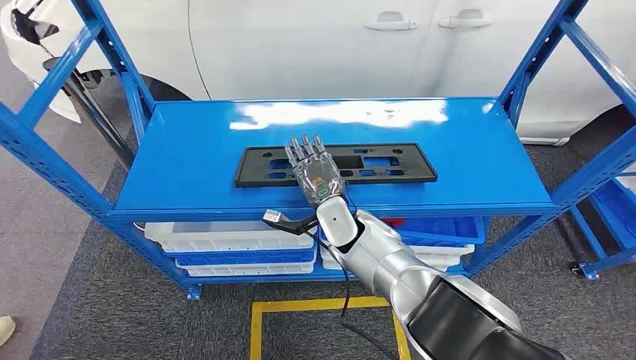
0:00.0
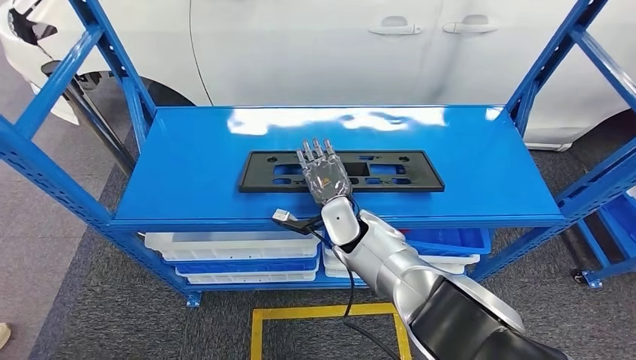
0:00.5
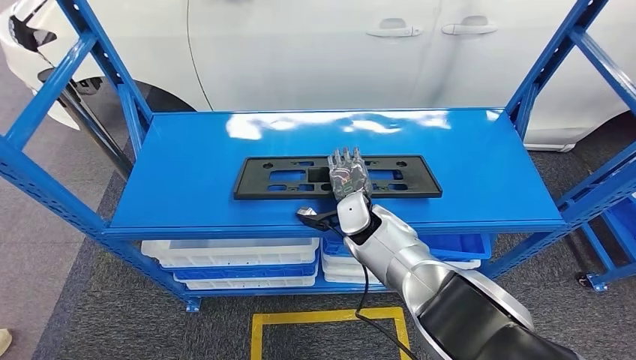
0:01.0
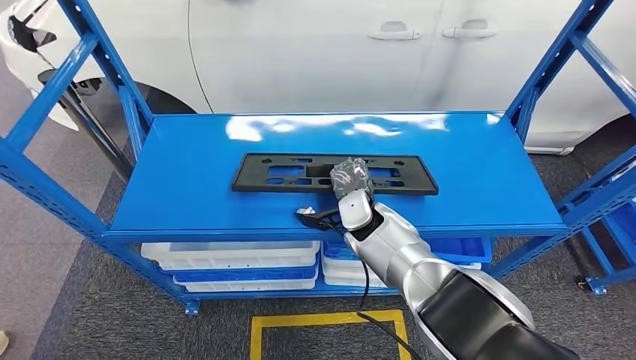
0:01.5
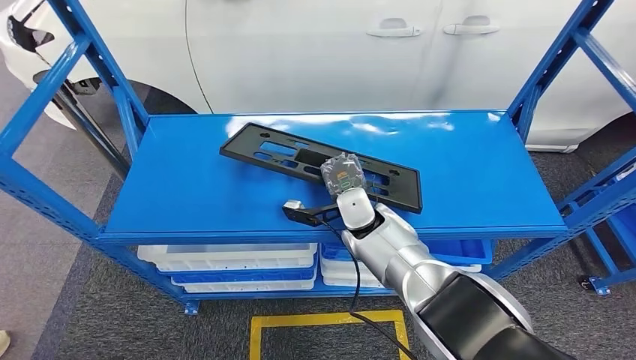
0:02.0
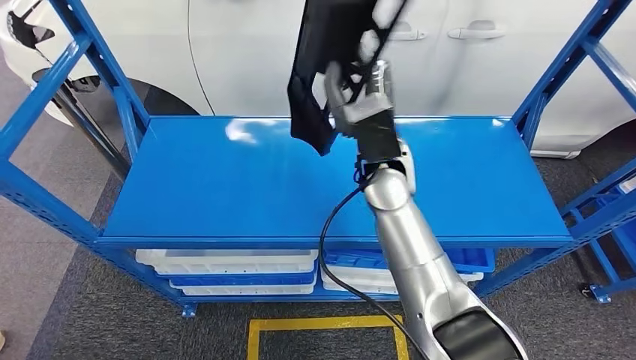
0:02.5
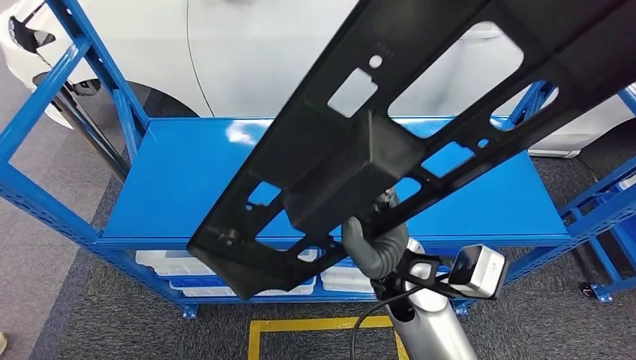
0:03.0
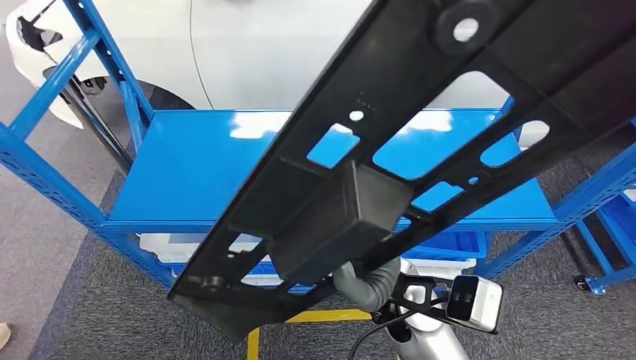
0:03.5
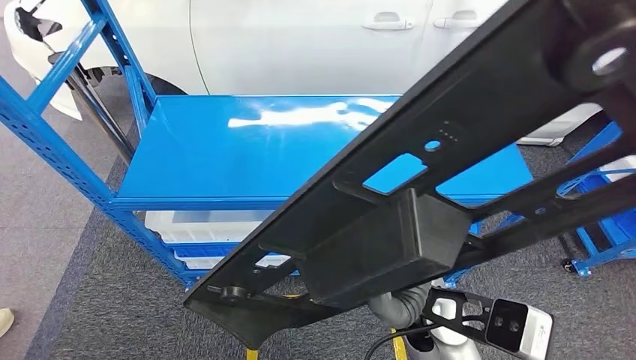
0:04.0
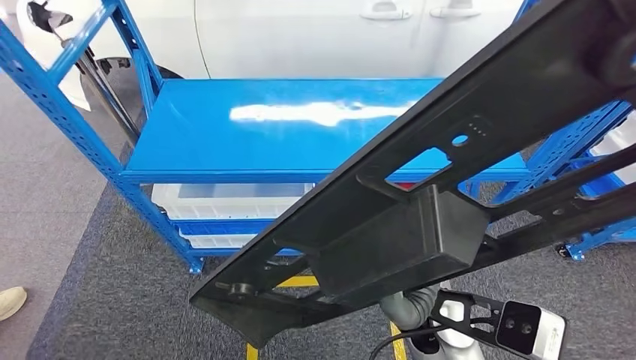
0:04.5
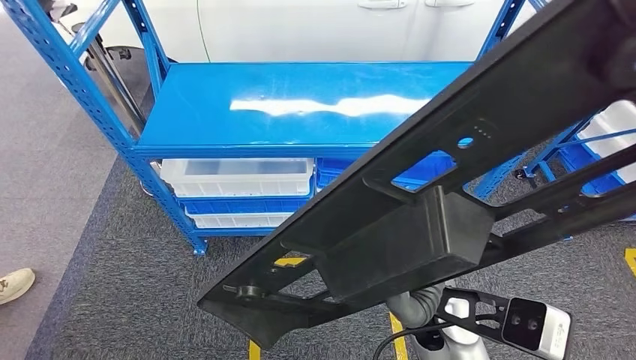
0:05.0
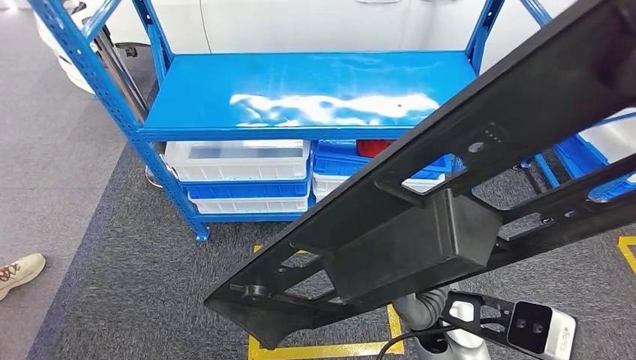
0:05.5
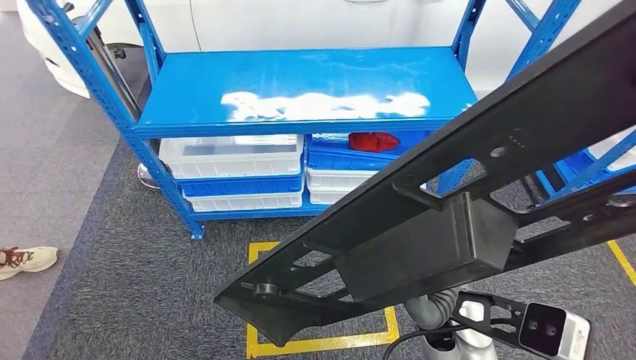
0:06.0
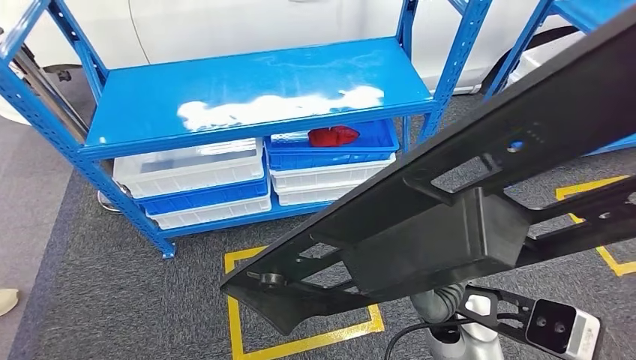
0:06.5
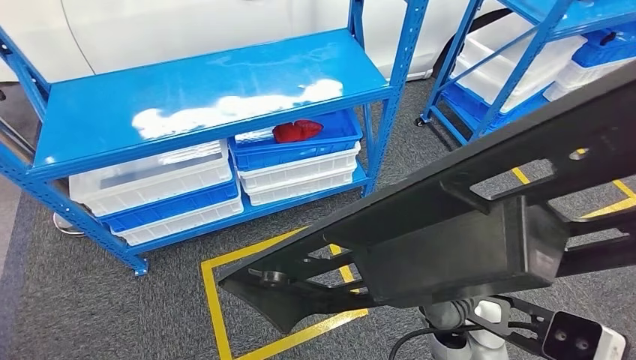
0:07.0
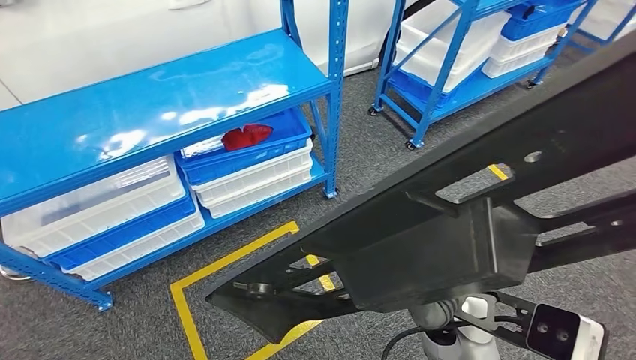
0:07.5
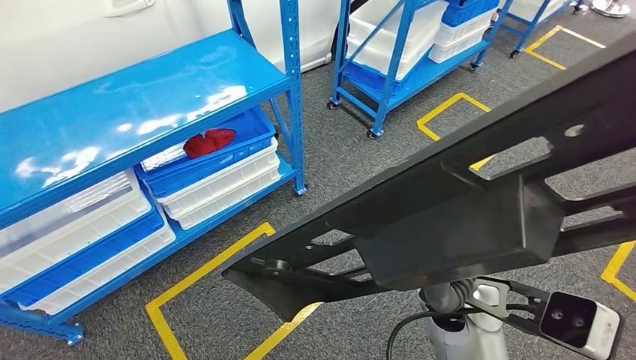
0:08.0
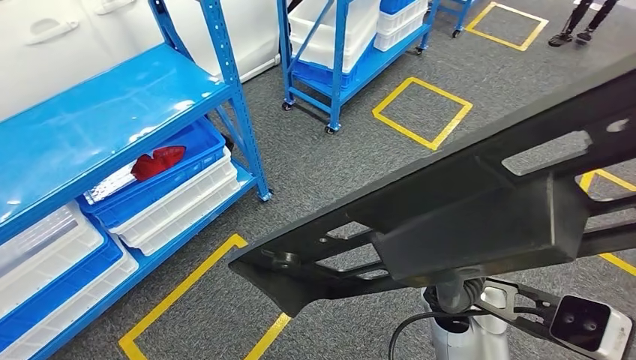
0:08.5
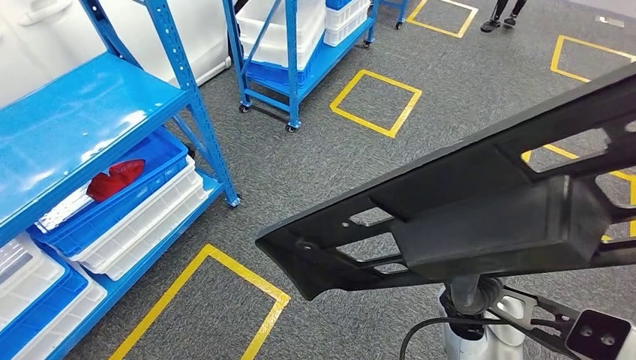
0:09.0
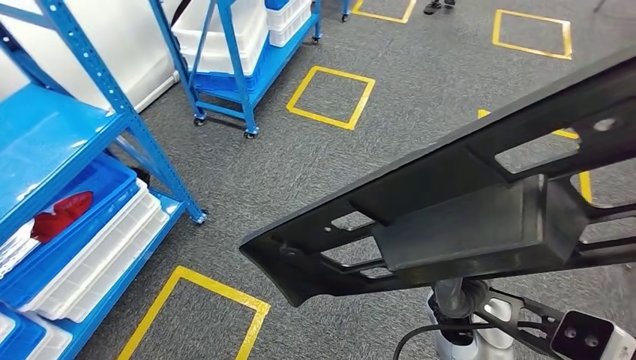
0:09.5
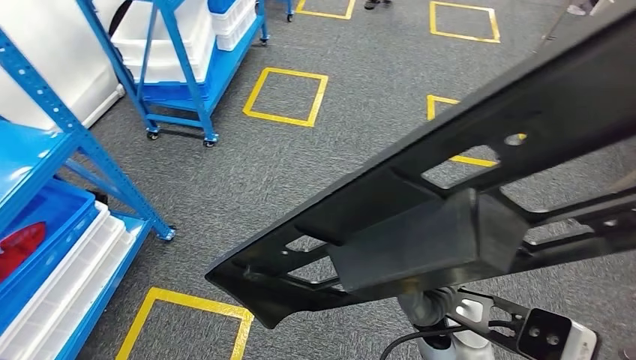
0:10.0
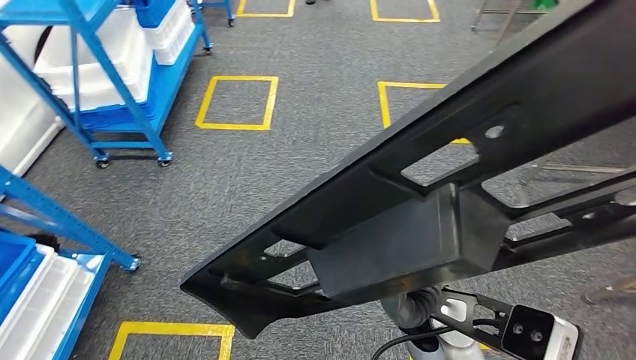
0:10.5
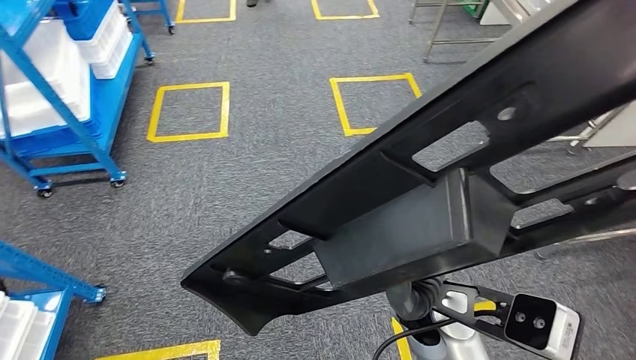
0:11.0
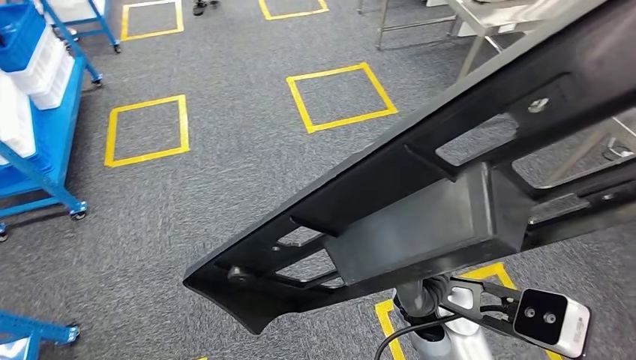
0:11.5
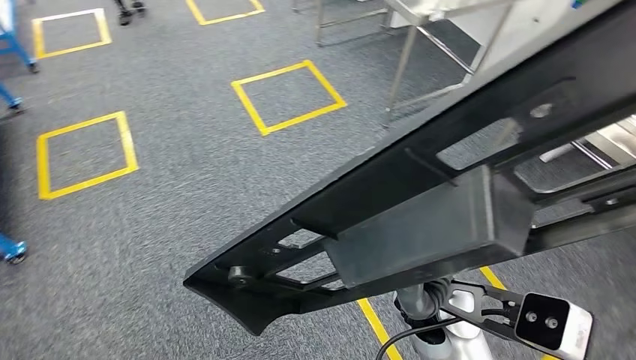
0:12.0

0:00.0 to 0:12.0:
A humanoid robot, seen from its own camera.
Step, 0:00.0 to 0:03.0: Pick up the large material from the shelf.

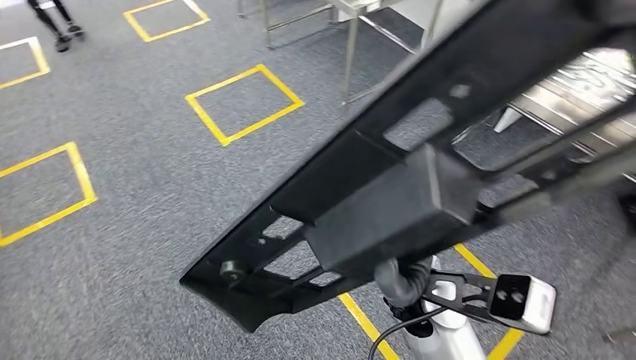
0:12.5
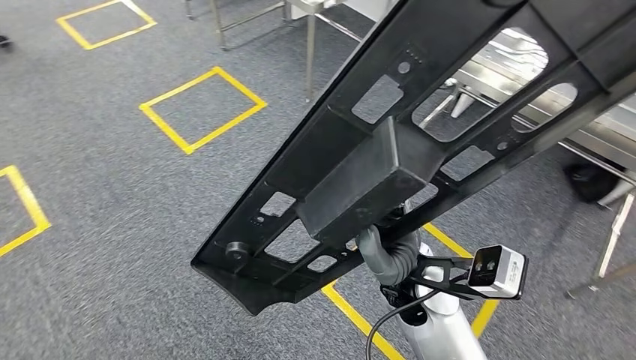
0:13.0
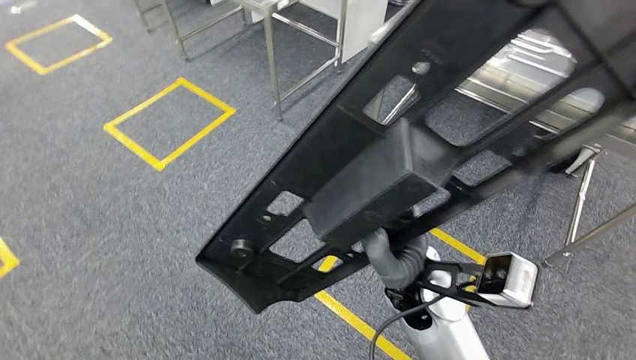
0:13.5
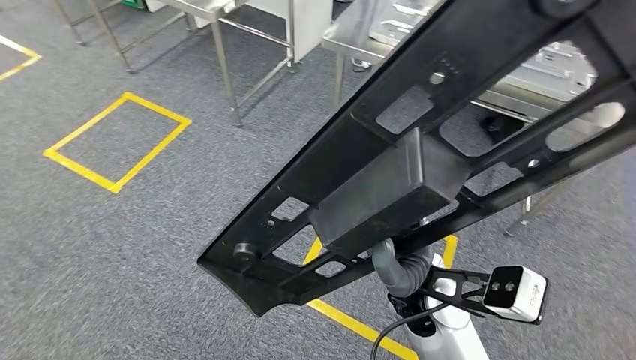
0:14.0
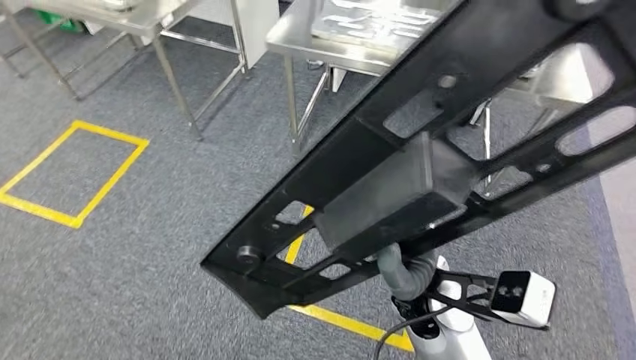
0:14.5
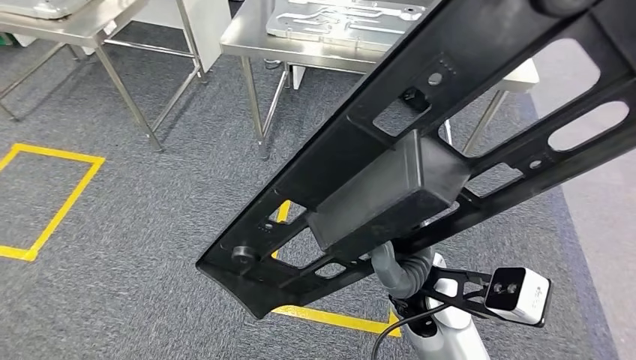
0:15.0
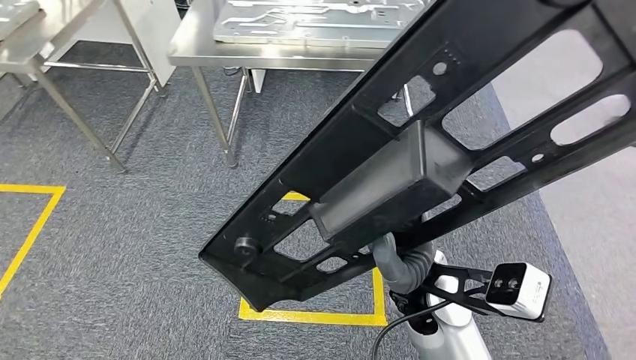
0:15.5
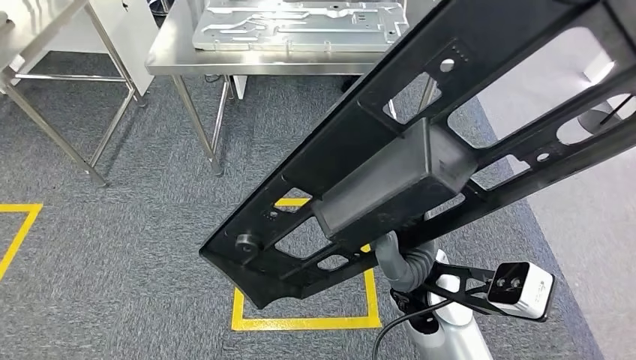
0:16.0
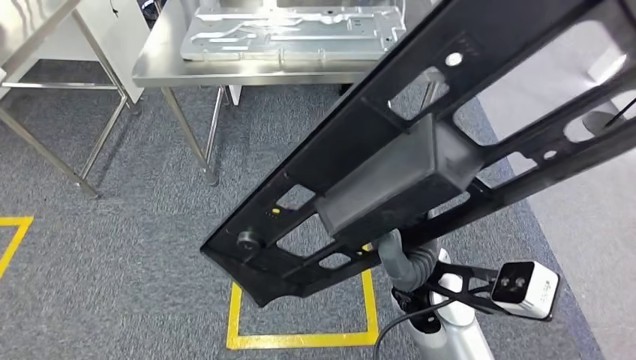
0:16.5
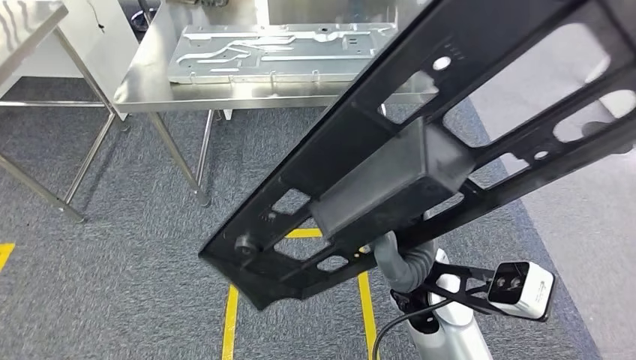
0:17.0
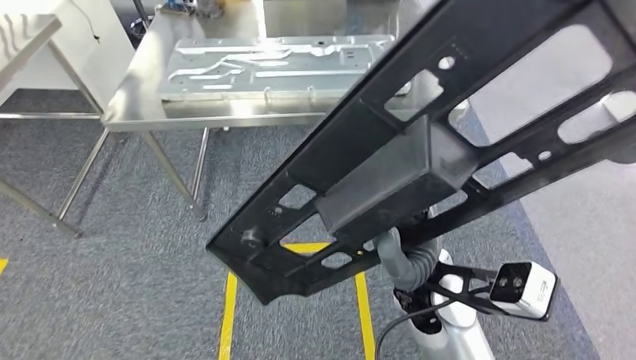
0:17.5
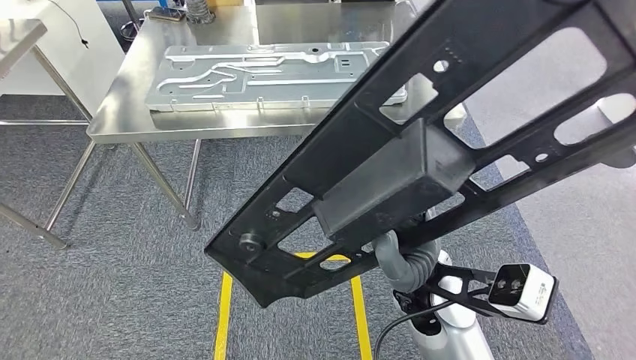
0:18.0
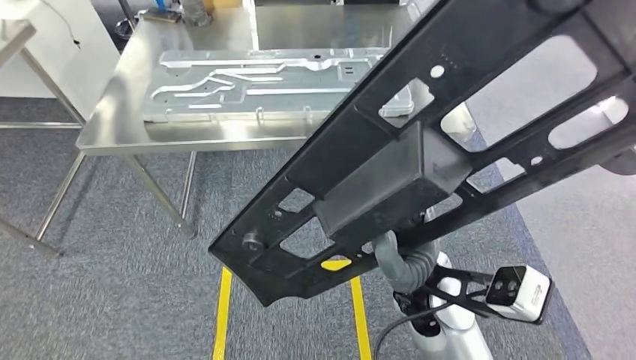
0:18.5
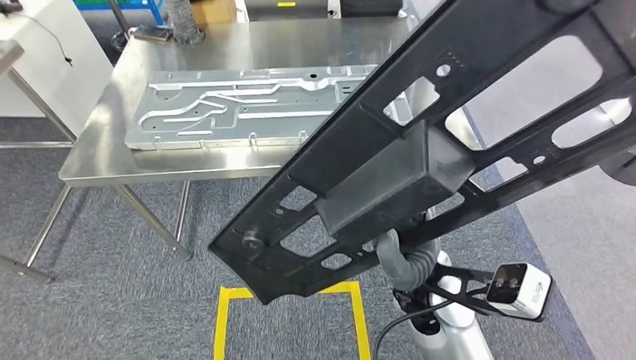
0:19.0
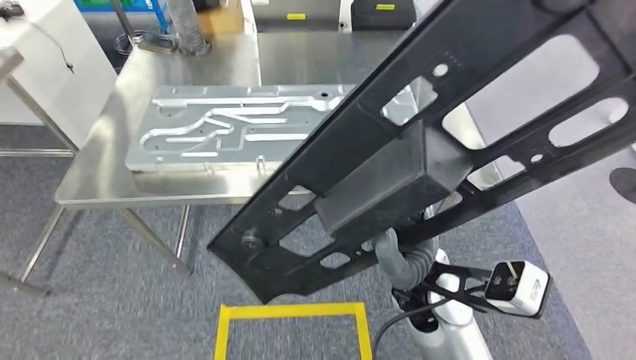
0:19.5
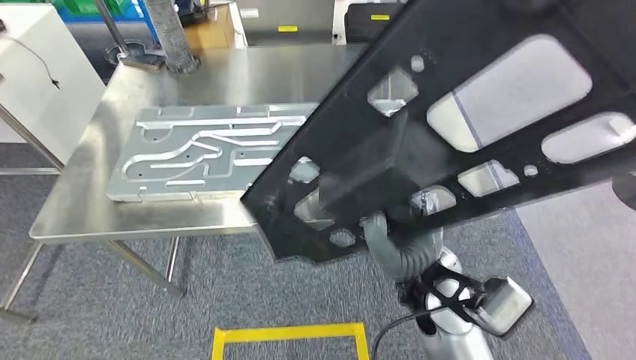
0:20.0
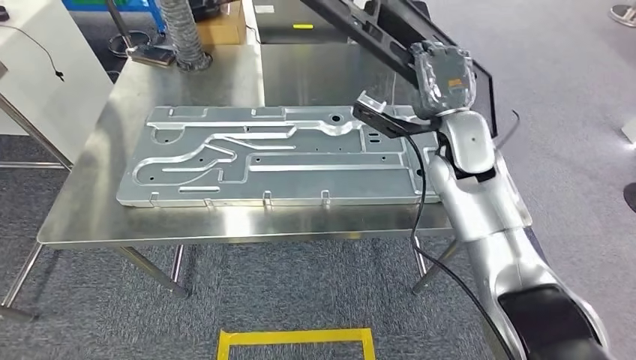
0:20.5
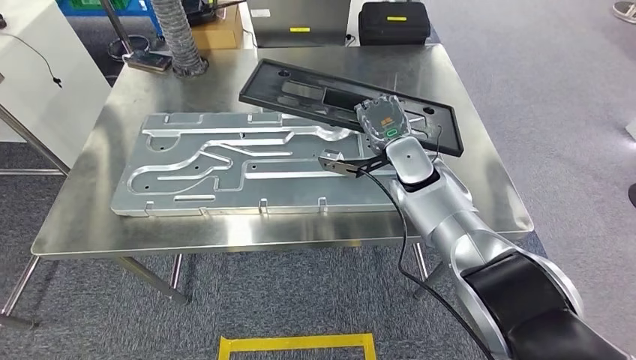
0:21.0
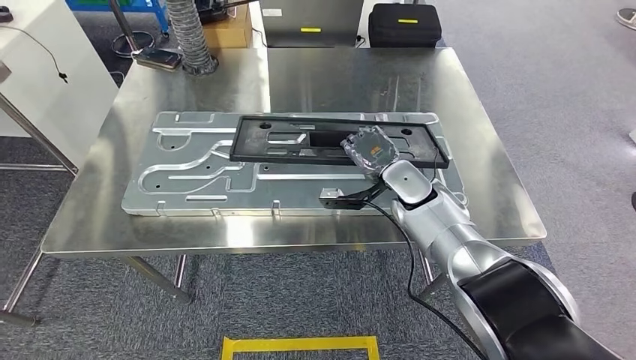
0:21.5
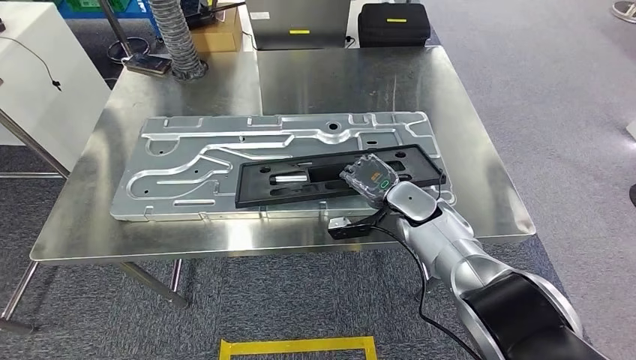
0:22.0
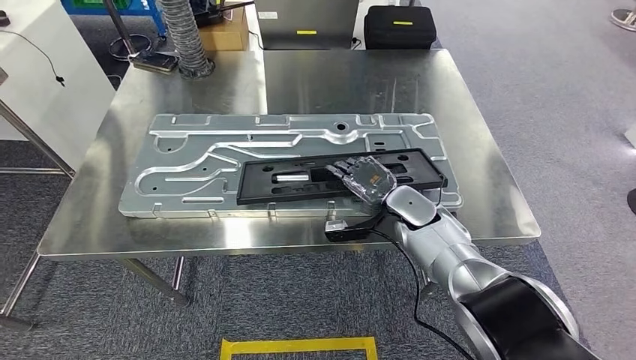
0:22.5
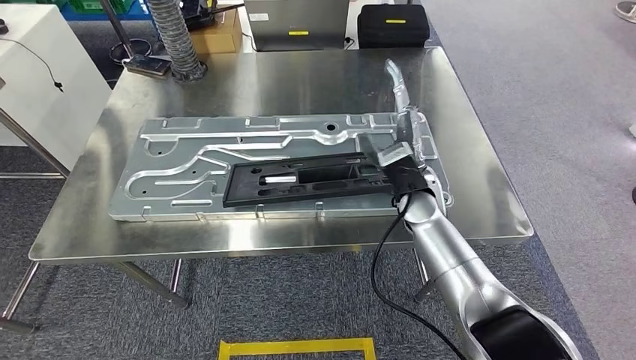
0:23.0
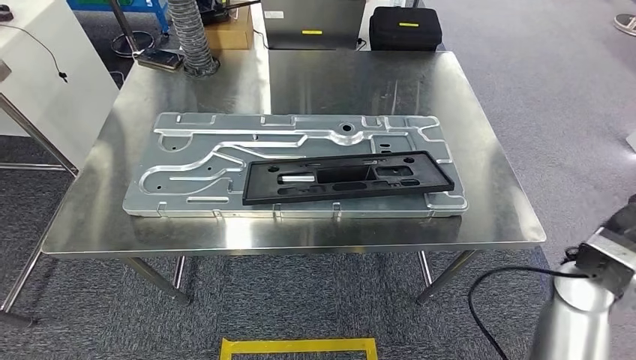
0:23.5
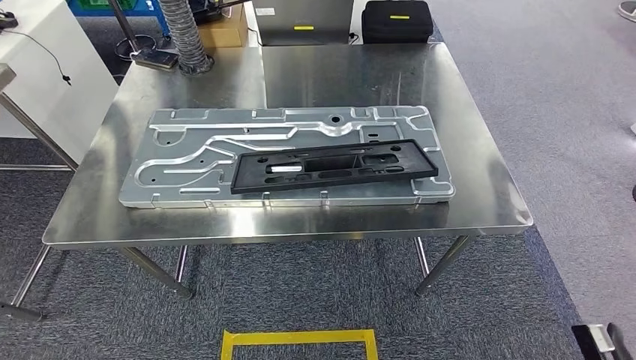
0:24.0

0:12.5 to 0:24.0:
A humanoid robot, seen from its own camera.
Step, 0:12.5 to 0:19.5: Move the large material to the workbench.
